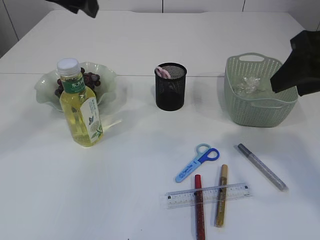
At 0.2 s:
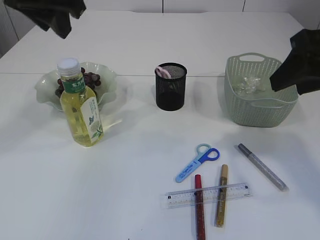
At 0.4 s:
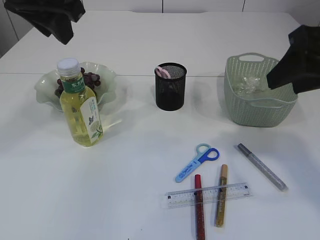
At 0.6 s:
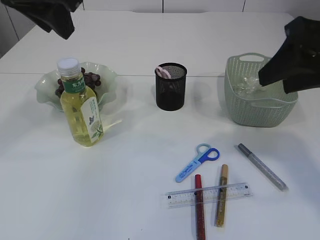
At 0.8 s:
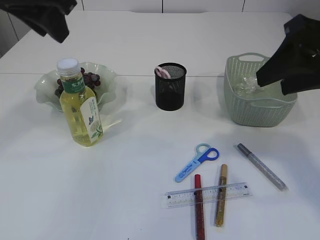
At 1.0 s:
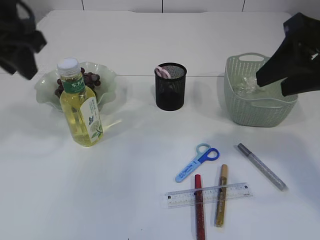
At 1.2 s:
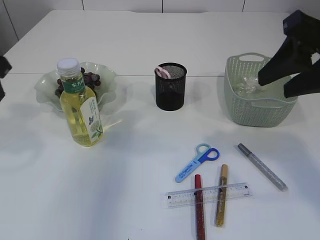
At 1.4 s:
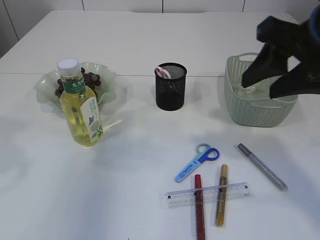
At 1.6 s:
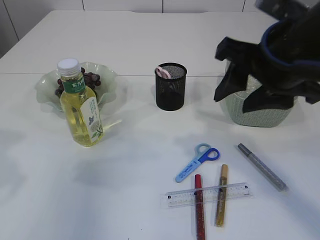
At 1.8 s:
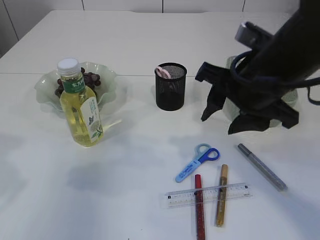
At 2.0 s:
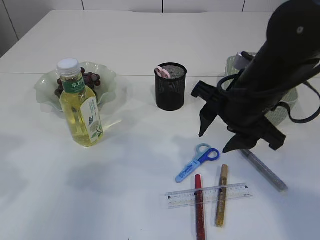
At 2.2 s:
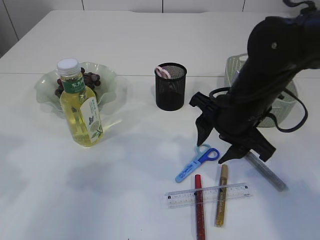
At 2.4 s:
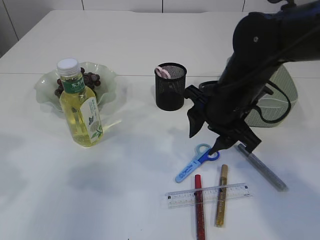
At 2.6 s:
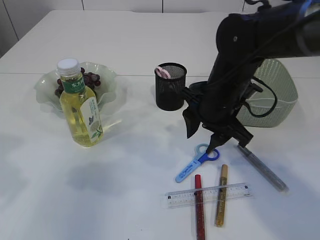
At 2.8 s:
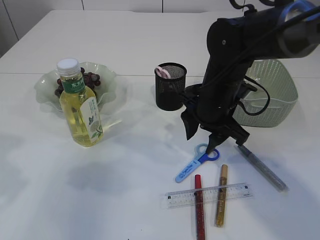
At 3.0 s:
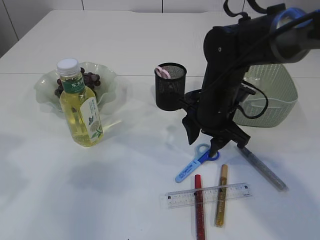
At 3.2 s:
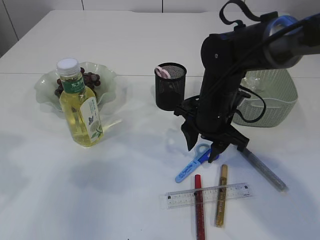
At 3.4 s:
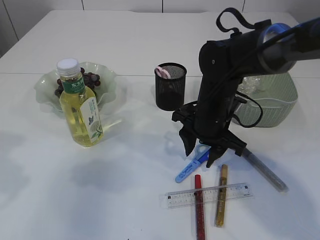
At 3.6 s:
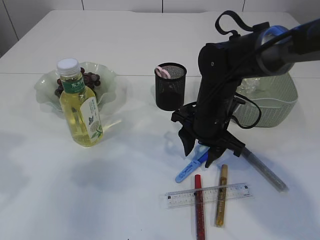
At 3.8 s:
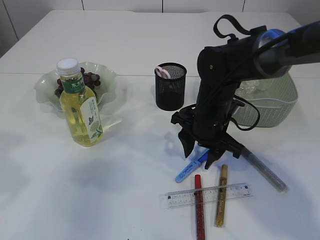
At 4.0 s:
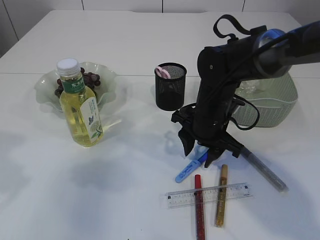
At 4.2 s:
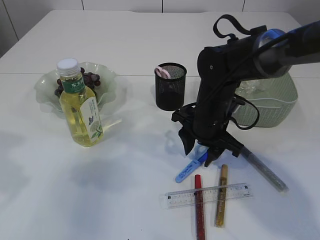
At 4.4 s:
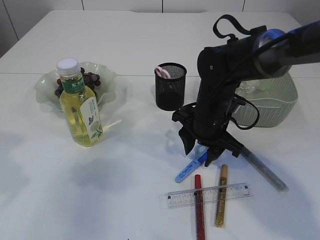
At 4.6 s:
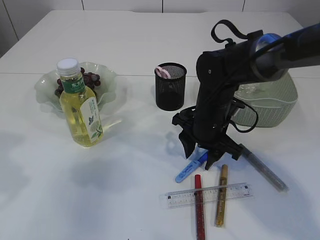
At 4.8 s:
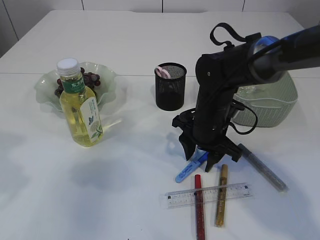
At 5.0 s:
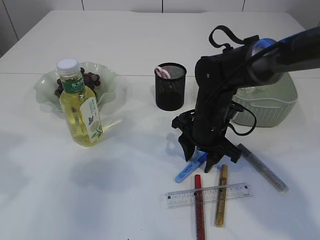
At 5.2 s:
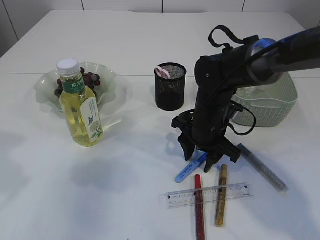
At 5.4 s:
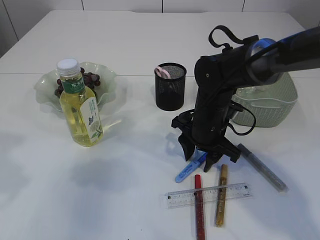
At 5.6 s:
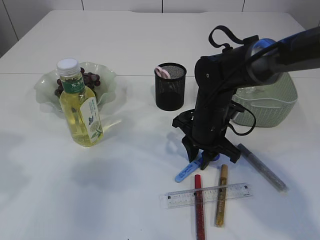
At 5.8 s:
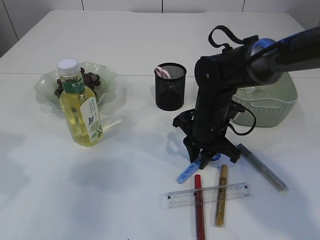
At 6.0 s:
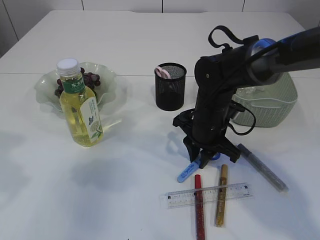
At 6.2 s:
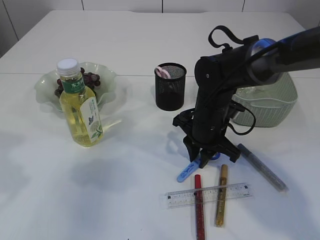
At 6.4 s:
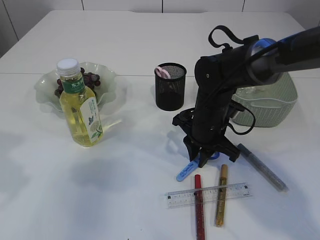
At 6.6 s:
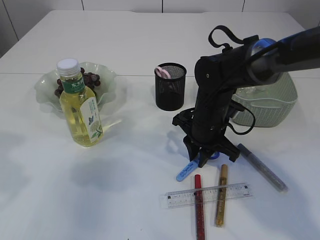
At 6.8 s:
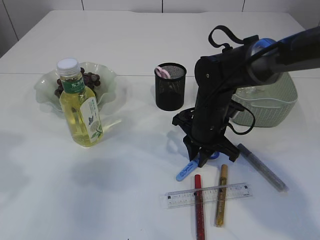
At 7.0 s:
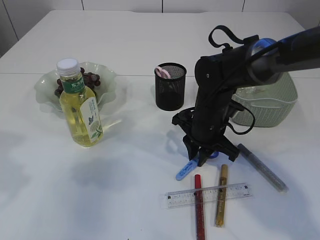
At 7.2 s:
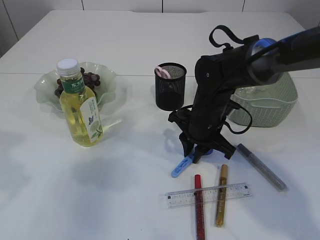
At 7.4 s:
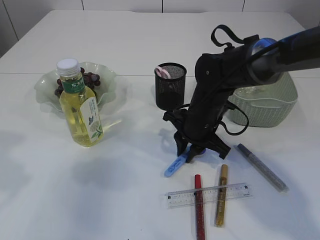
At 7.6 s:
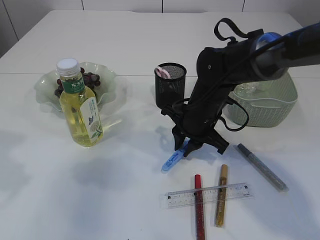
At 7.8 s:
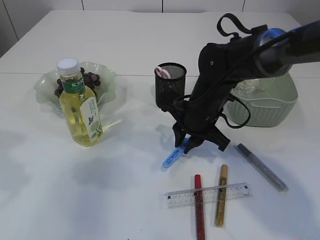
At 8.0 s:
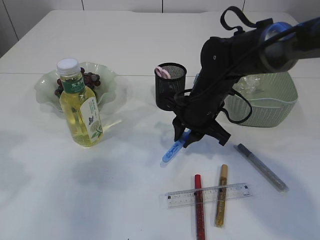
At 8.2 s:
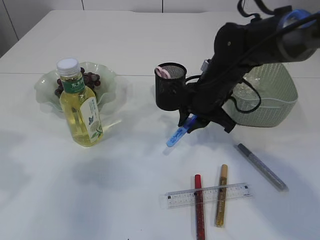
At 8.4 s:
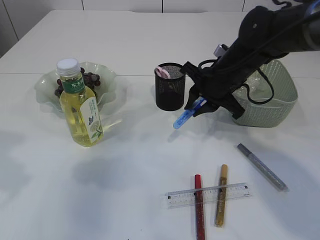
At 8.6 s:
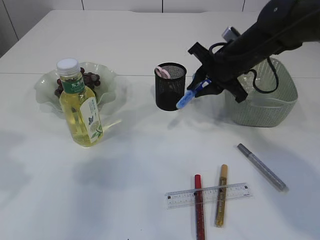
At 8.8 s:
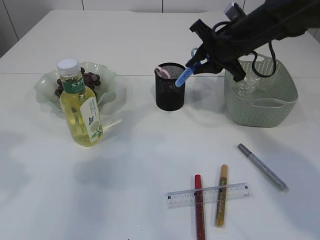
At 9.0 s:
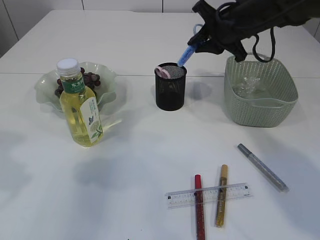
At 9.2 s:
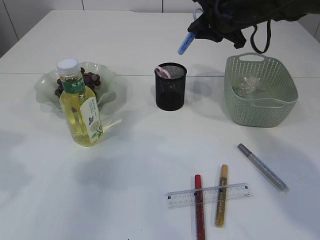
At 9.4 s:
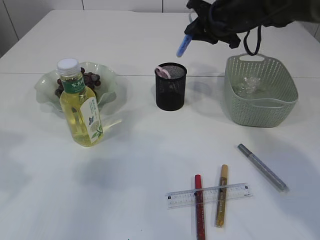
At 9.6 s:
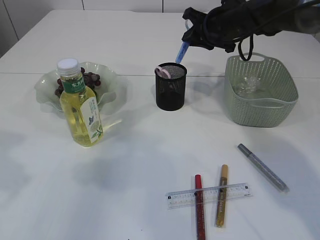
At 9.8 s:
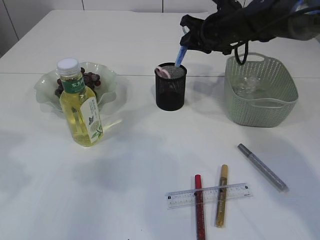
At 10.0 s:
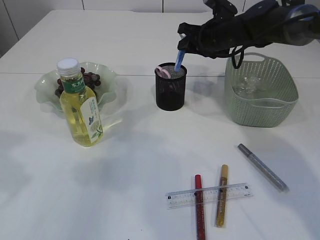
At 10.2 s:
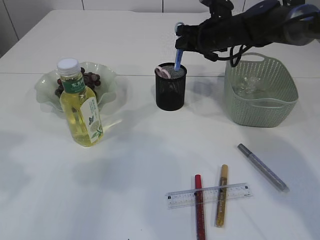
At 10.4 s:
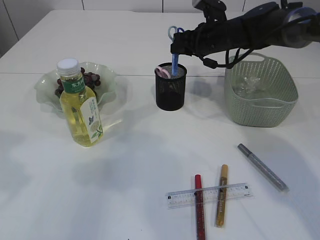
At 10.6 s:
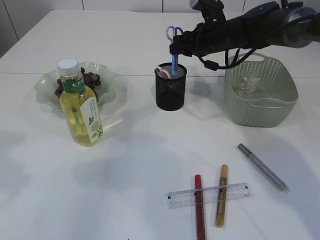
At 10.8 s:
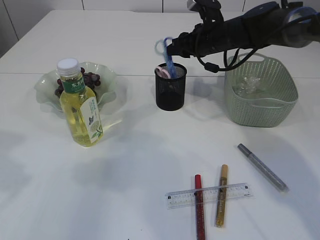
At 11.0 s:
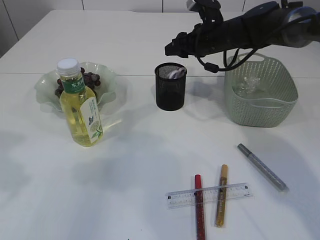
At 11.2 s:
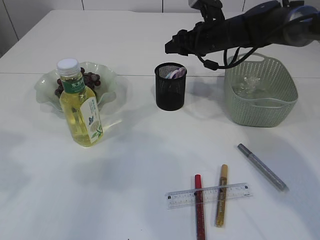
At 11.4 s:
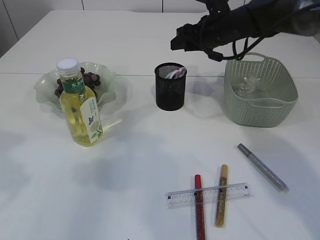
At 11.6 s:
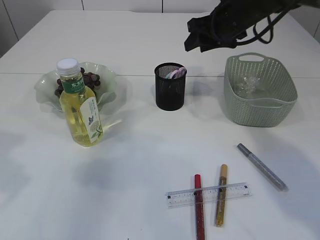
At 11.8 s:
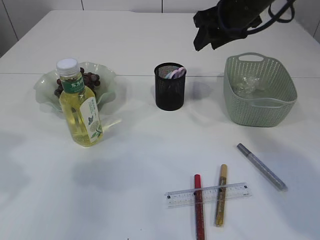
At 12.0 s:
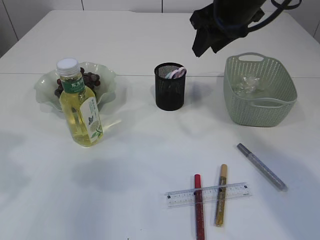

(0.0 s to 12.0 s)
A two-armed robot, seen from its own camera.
Step, 0.0 s - 8.0 s: pick up the blue scissors.
Step, 8.2 s - 11.4 s: Place the blue knife into the pen holder.
0.0 s - 1.6 s: The left gripper travels backward, to the left and downward by roughly 20 cm. The right gripper travels to the left by some 10 cm.
1.6 s - 3.0 s: The right gripper moves downward and forward, some 15 cm.
3.0 s - 4.4 s: The grippers make only small movements.
4.4 s - 6.0 s: The right gripper closes its fingers.
6.0 s - 7.6 s: The grippers make only small movements.
7.6 s - 9.0 s: The right gripper moves upward, to the right and forward, about 15 cm.
9.0 s - 10.4 s: The right gripper heads forward and downward, covering approximately 10 cm.
10.4 s - 12.0 s: The right gripper shifts about 15 cm upward and backward, and opens its fingers.

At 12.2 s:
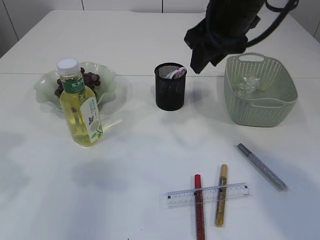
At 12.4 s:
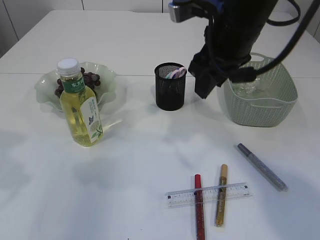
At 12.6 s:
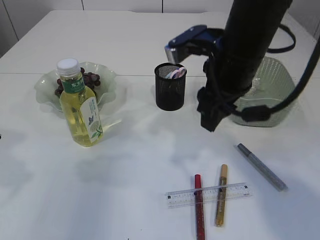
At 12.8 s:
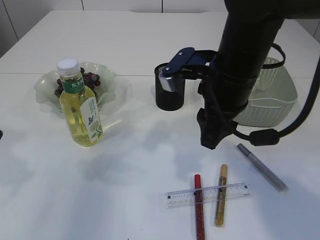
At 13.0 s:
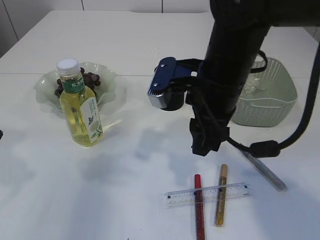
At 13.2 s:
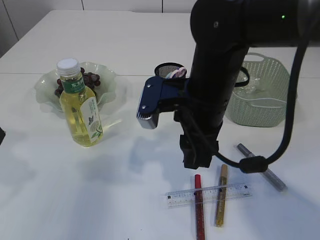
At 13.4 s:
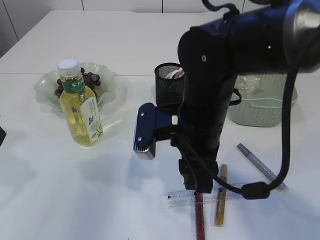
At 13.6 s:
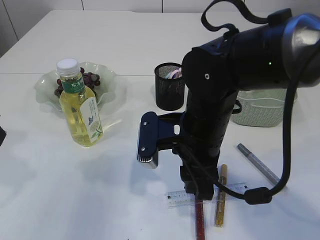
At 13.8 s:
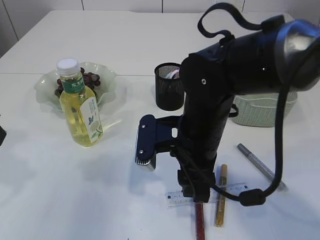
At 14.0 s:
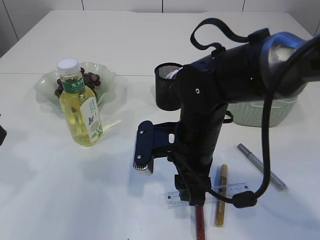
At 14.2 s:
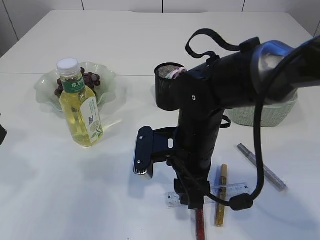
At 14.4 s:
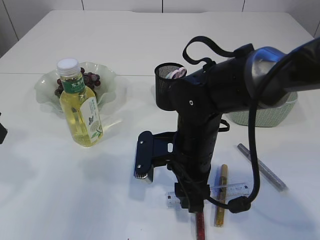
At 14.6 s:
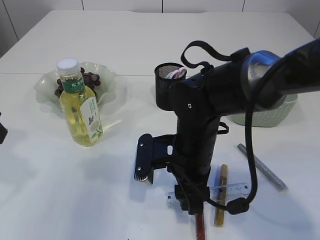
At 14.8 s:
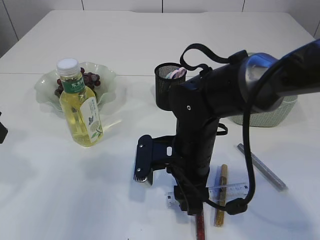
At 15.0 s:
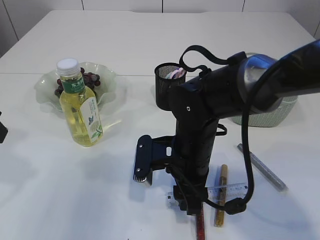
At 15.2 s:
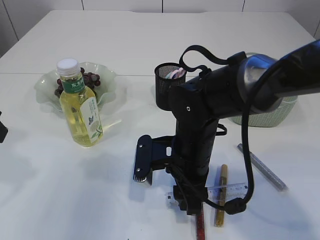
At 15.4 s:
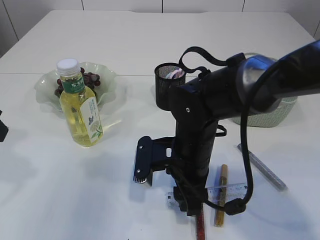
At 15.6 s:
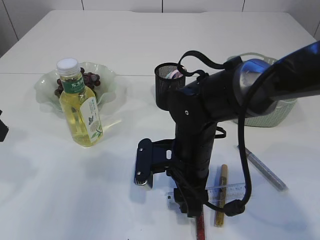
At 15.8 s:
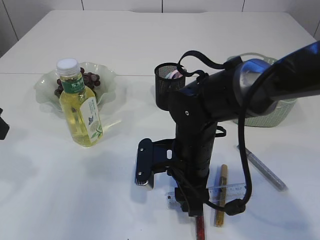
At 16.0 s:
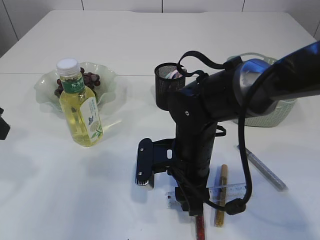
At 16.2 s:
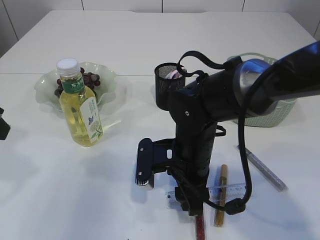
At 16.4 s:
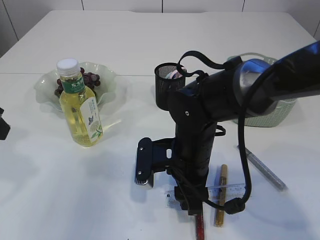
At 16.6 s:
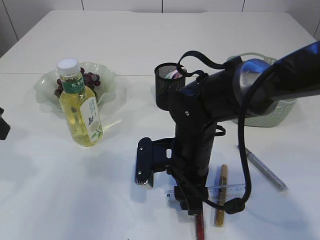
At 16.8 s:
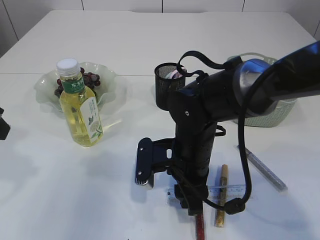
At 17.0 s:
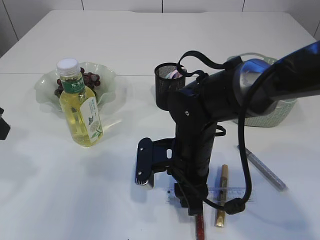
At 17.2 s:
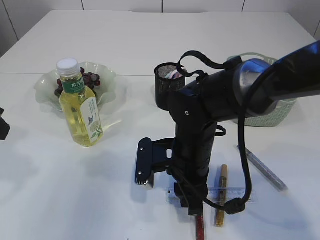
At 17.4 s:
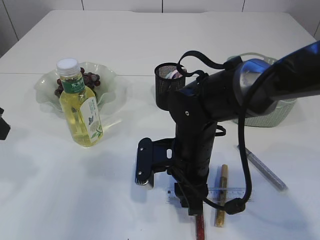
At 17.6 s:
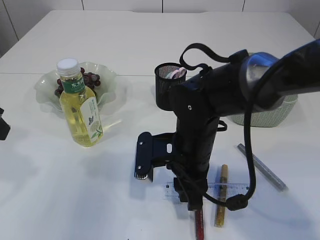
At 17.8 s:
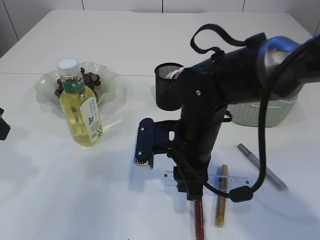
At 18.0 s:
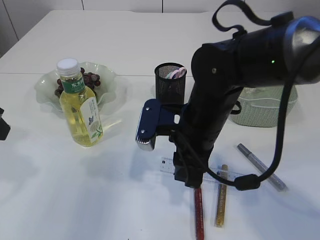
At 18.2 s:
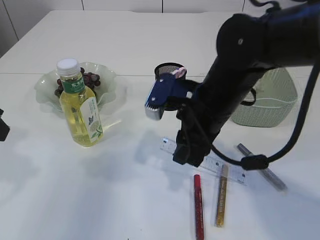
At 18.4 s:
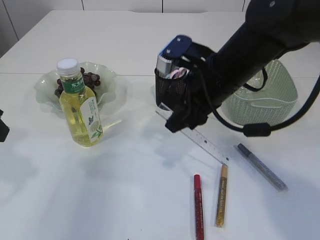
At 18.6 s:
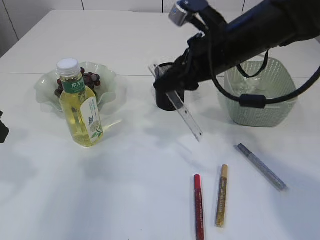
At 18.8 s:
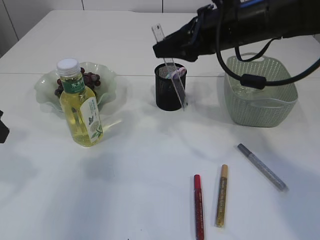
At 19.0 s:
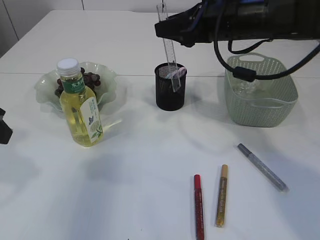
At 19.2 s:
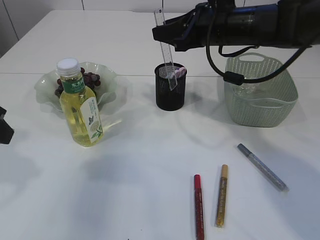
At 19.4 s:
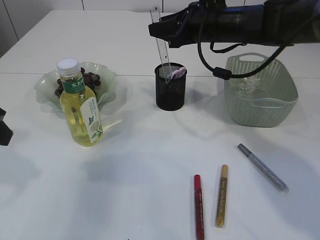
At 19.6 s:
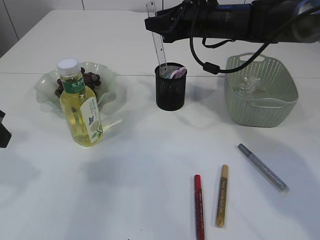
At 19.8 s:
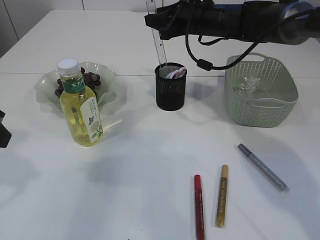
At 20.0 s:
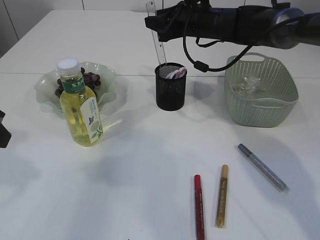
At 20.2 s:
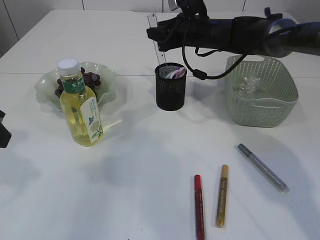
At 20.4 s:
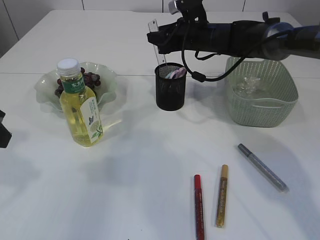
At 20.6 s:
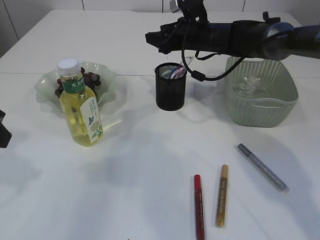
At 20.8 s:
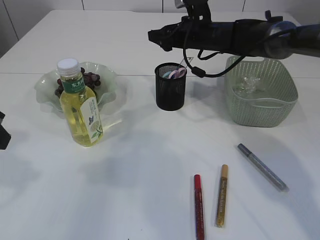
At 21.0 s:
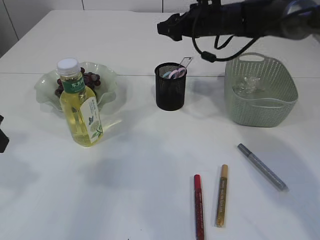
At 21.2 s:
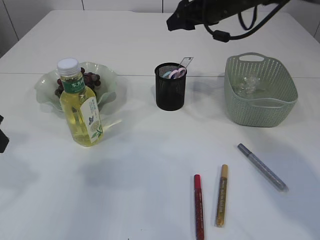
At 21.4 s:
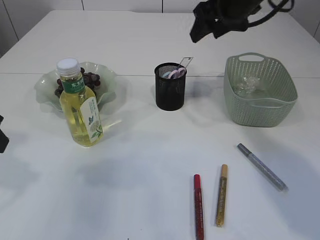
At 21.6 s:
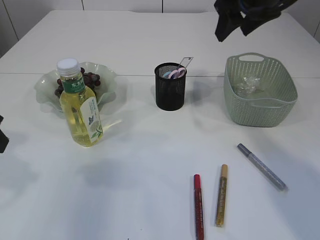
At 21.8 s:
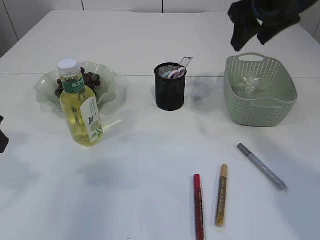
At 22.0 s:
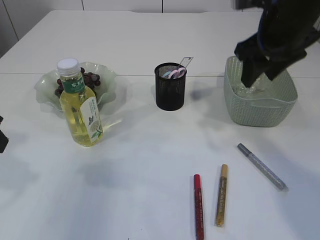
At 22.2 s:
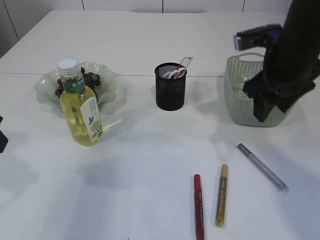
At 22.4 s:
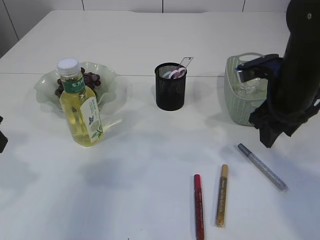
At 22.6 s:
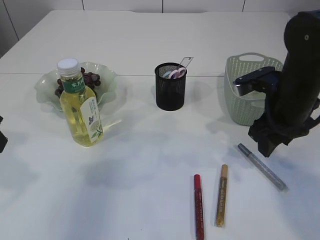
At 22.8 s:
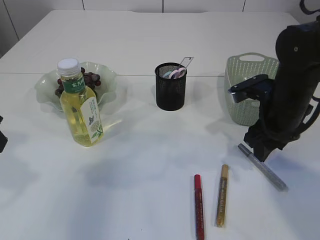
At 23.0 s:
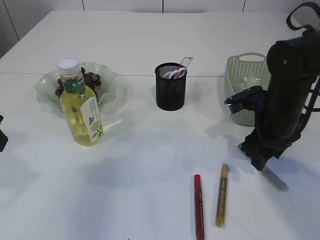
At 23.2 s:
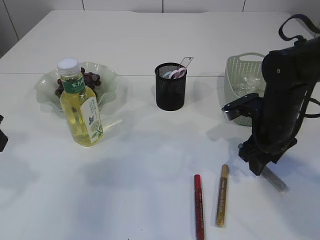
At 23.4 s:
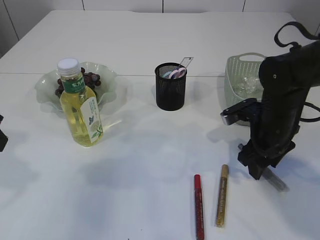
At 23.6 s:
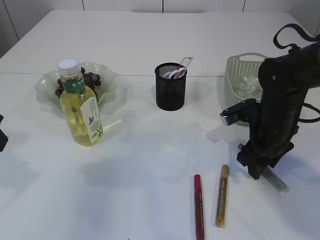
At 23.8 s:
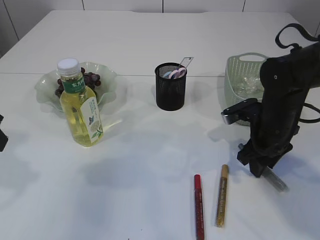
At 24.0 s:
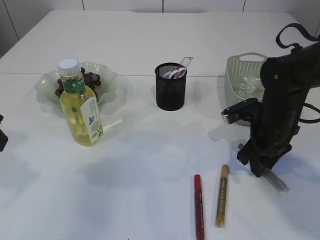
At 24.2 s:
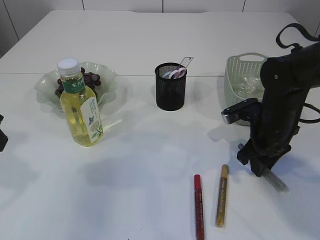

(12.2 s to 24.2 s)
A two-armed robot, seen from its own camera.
Step, 12.2 s - 18.0 s: pick up the ruler.
Step, 18.2 s - 20.8 s: Place the ruler into the pen holder.
12.2 s - 13.8 s: The right gripper heads downward, backward and to the left, covering approximately 20 cm.
13.8 s - 15.2 s: The right gripper changes place by roughly 5 cm.
15.2 s - 16.6 s: Neither gripper changes place.
16.6 s - 18.2 s: The right gripper shifts roughly 10 cm upward.
18.2 s - 19.8 s: The right gripper travels forward by some 20 cm.
19.8 s - 21.2 s: The right gripper opens its fingers.
21.2 s - 22.6 s: The right gripper goes roughly 20 cm backward, downward and to the right.
22.6 s - 24.2 s: The right gripper moves downward, about 10 cm.
